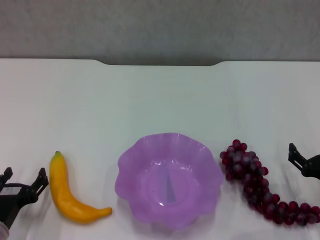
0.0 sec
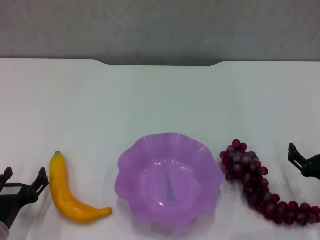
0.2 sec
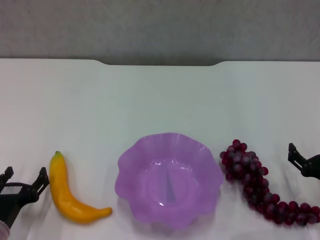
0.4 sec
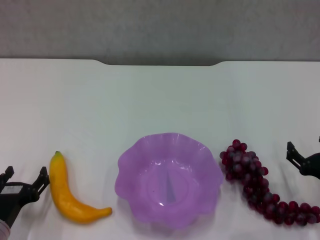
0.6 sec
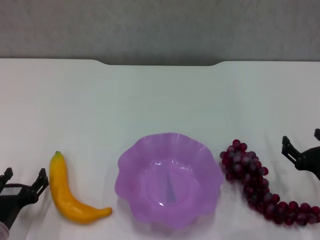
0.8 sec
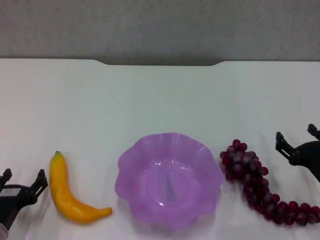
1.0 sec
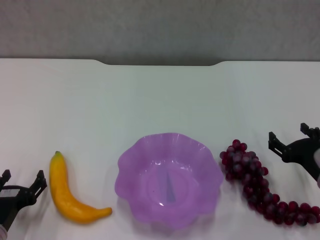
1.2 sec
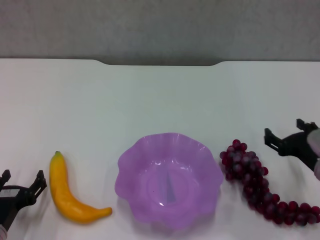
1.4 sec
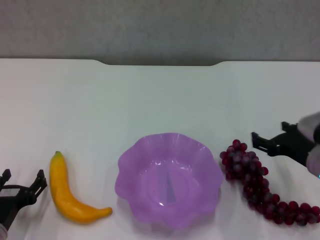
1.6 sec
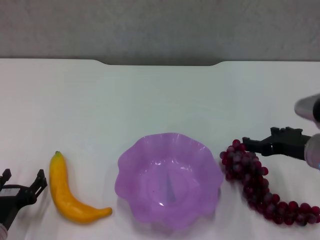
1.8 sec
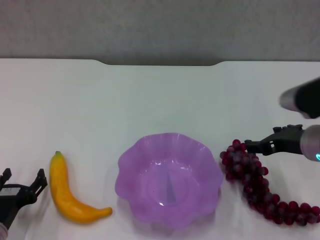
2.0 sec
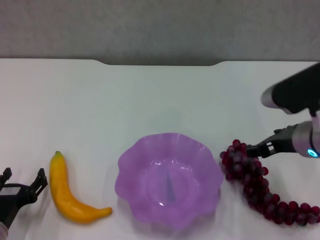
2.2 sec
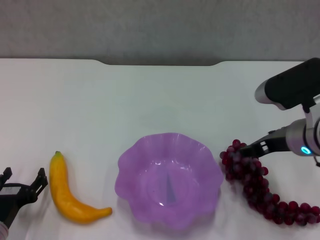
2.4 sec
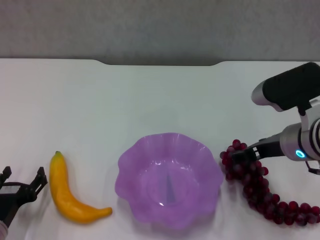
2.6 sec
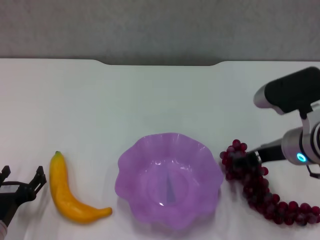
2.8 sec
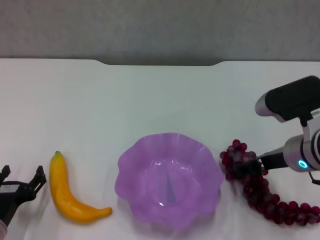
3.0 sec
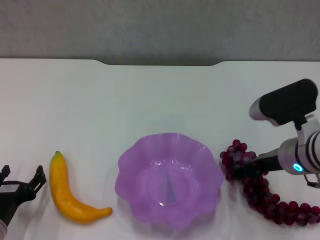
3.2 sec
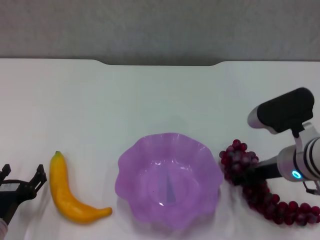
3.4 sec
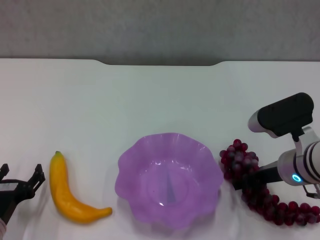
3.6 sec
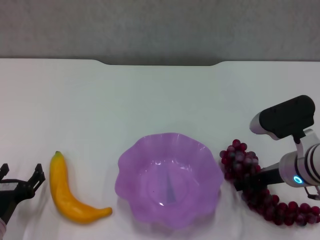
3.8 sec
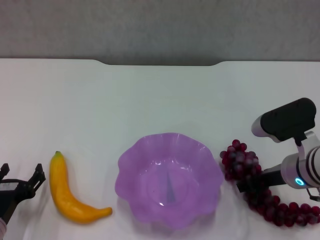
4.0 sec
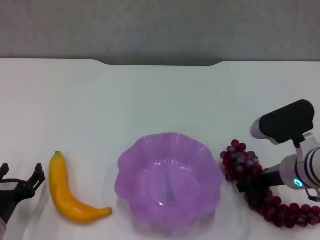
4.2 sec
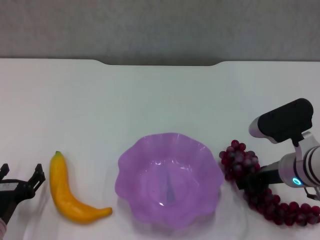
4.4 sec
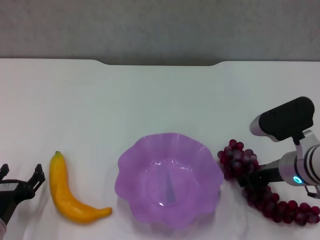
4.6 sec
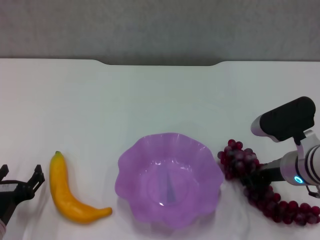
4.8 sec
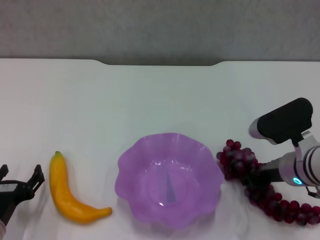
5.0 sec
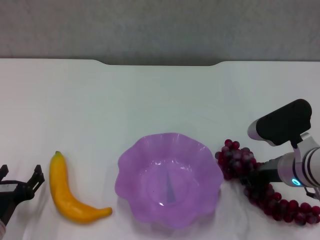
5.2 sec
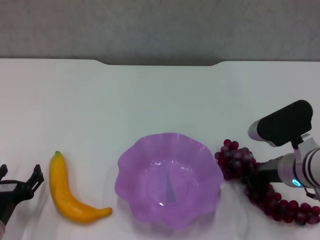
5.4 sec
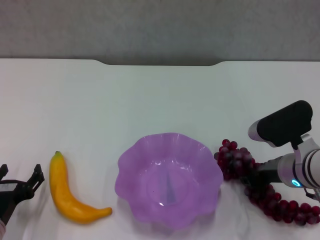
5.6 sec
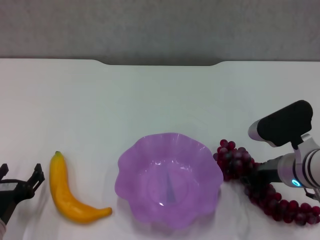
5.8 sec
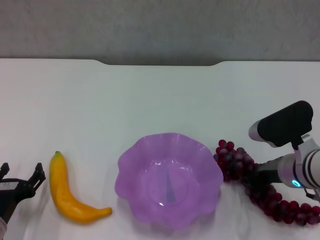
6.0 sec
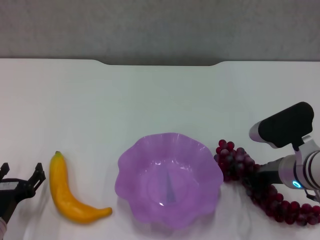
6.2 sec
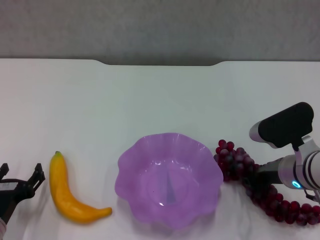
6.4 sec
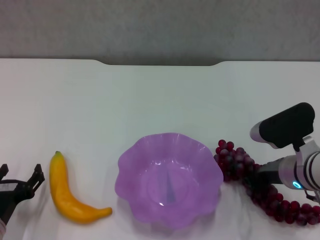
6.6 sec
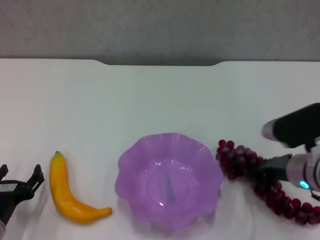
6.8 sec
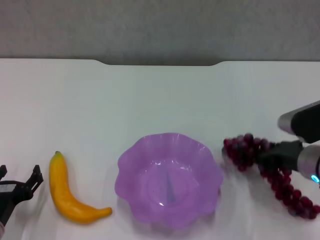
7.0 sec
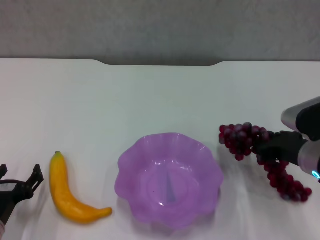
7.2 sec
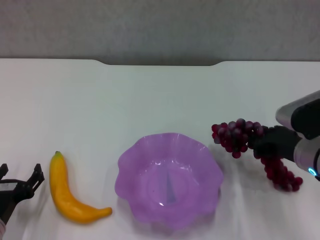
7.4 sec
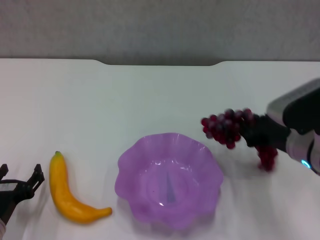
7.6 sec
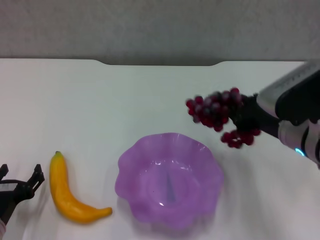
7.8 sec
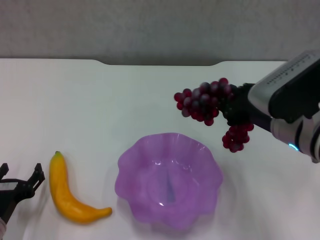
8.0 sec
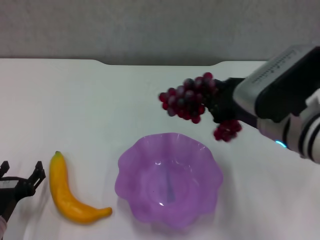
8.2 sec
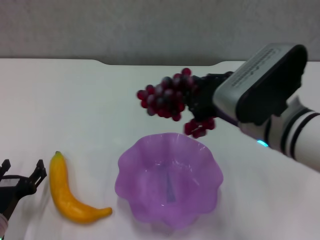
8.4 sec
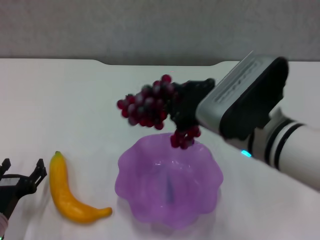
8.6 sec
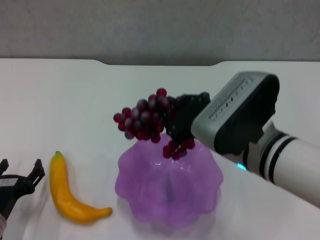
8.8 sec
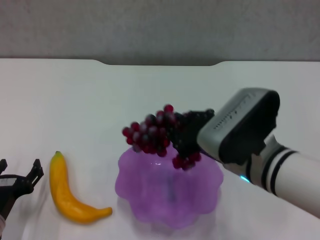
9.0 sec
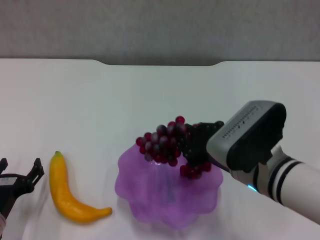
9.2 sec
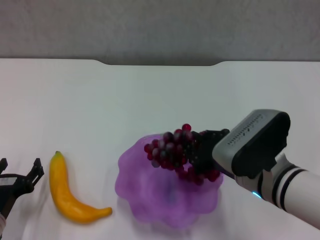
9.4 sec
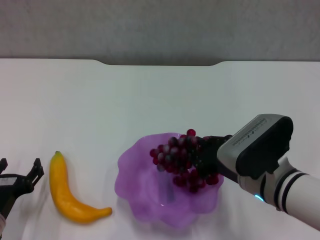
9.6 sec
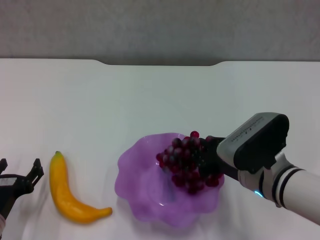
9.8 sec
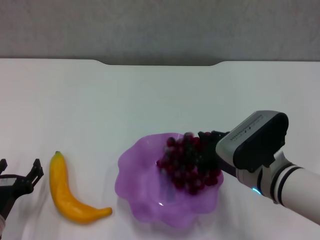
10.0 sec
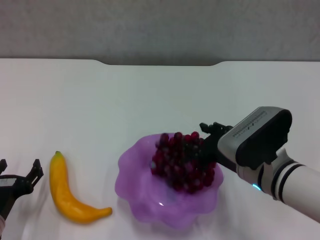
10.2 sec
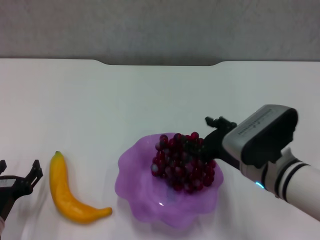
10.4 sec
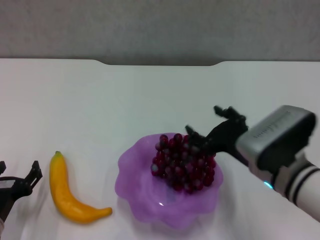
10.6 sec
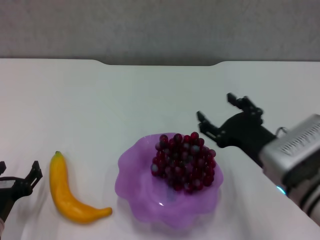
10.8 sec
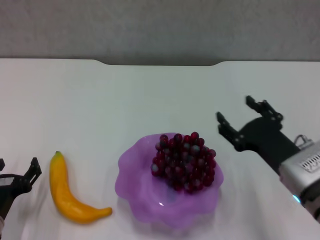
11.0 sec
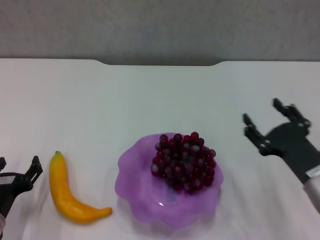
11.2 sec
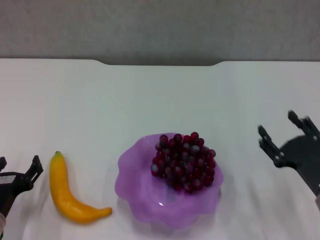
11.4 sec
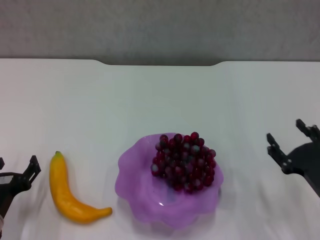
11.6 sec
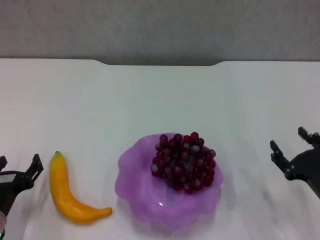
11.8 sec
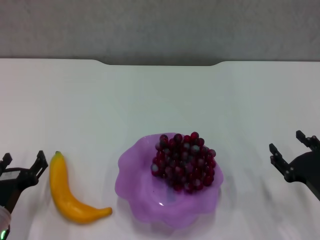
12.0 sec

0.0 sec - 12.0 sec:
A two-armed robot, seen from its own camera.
Step, 0.0 sec - 4.8 sec: Grasp the grape with right gripper.
Step, 5.0 sec - 10.6 sec: Place the grape in the purple plate with right gripper.
0.0 sec - 1.6 sec: The right gripper moves upward and to the left, approximately 10 cm.
1.6 sec - 3.0 sec: The right gripper moves about 5 cm.
3.0 sec - 4.4 sec: The grippers stay close to where they were, moving slightly.
4.4 sec - 6.0 sec: The right gripper closes its fingers.
6.0 sec - 7.6 sec: The right gripper ends up approximately 5 cm from where it was.
7.6 sec - 9.0 sec: The right gripper shifts about 10 cm to the left.
9.0 sec - 10.4 sec: The right gripper moves roughly 5 cm, and opens up.
10.4 sec - 12.0 sec: The right gripper shifts about 15 cm to the right and downward.

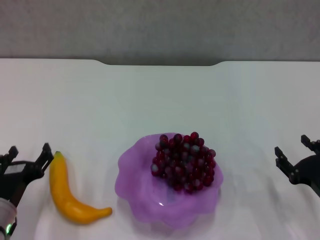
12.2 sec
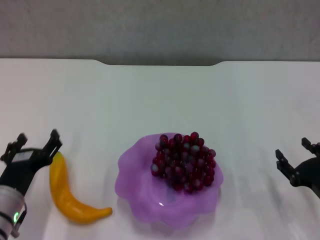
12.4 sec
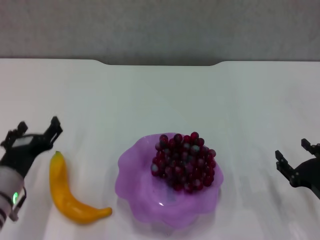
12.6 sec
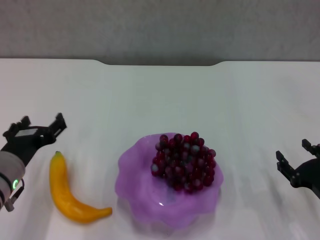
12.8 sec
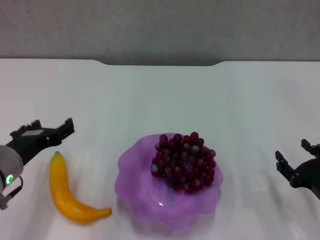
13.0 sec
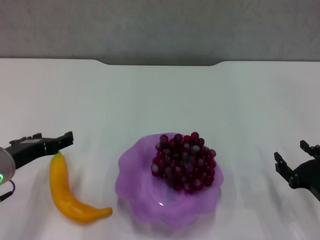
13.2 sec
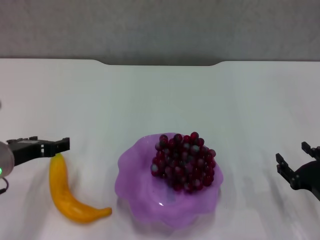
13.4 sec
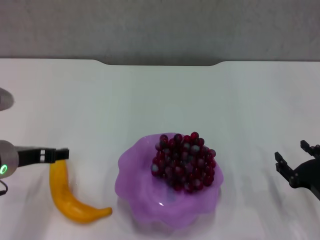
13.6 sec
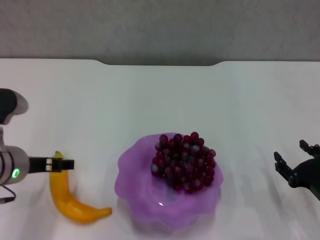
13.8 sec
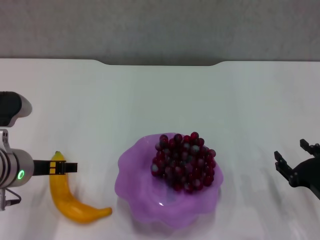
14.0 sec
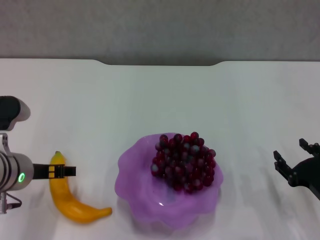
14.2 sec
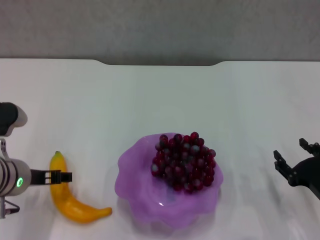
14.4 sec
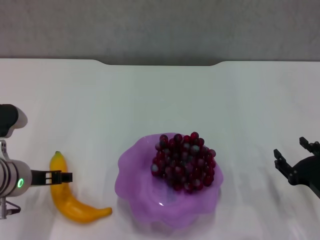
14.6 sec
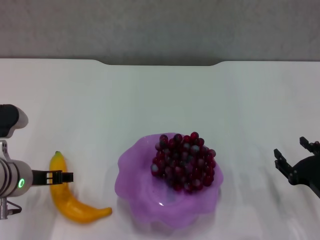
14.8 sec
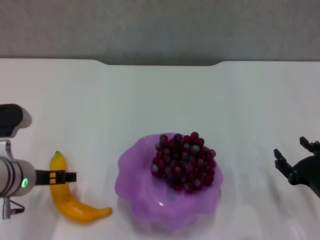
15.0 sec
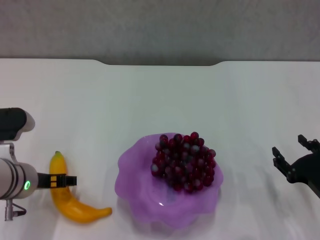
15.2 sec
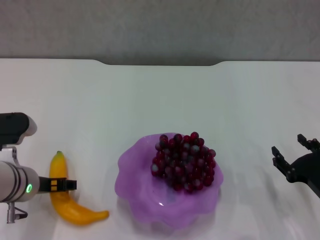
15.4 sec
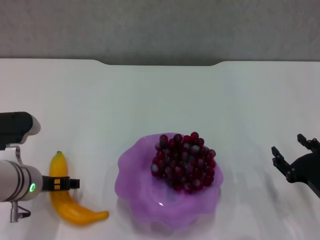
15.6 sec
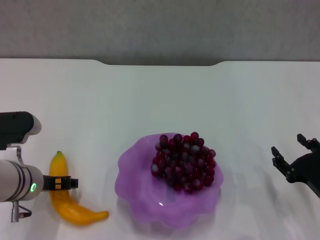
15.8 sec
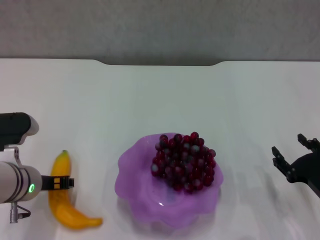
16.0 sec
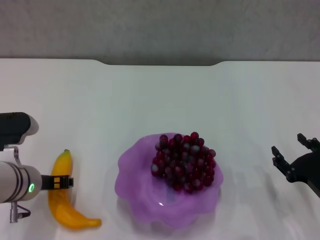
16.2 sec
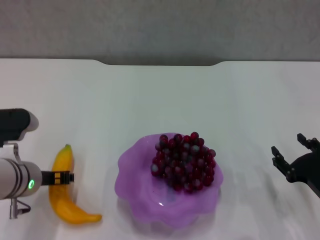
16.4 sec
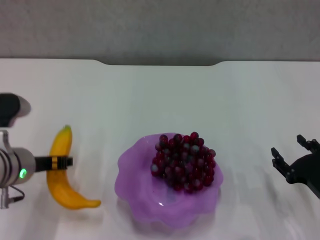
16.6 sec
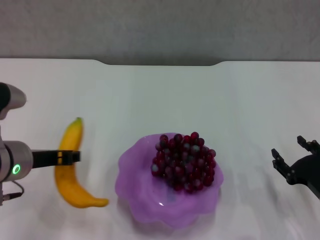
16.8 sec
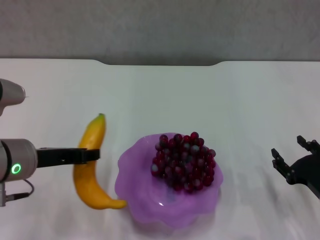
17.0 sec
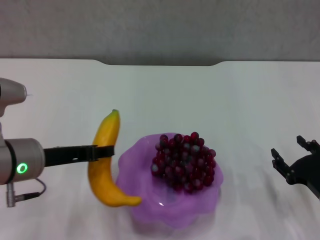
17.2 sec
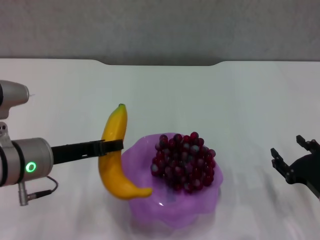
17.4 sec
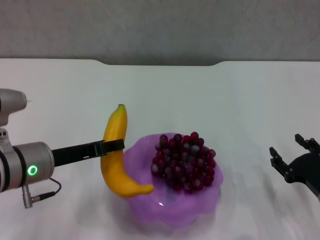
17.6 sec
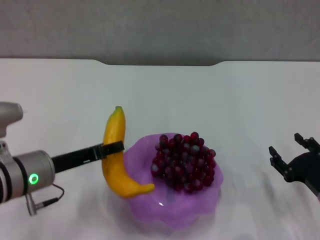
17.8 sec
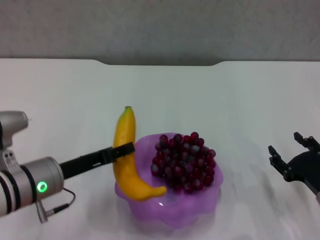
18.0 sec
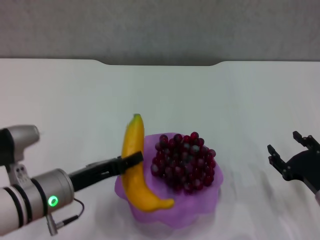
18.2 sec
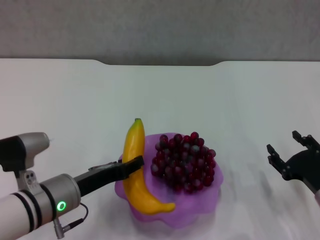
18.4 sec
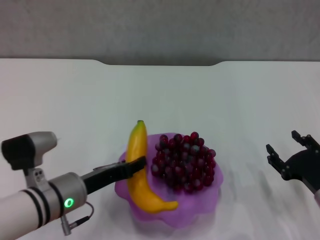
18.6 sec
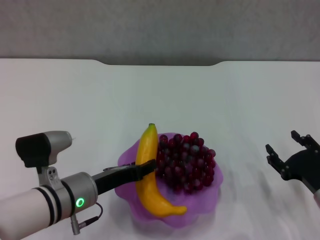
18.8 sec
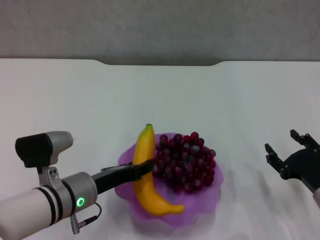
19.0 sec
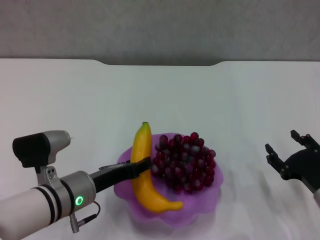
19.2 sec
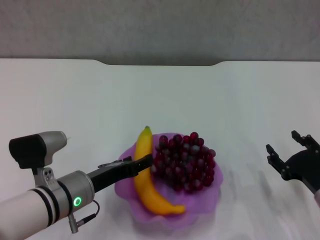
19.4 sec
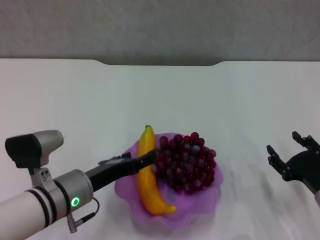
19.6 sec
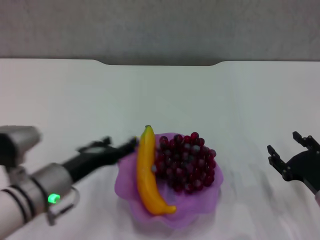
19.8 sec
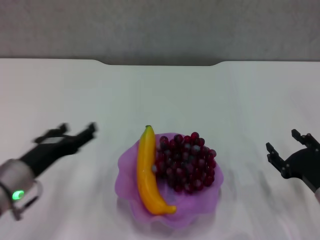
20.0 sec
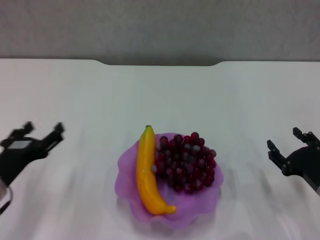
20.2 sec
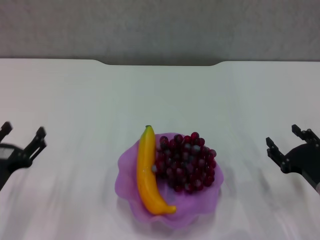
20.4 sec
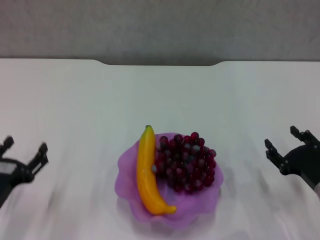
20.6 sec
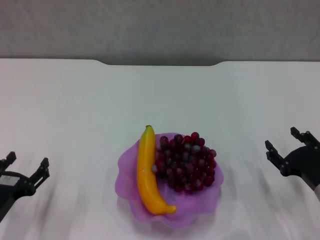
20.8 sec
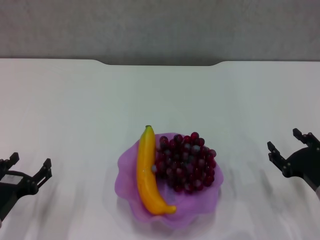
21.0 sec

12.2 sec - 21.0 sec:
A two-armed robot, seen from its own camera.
Step, 12.2 sec - 16.0 sec: Grasp the banana with left gripper.
Step, 16.2 sec - 19.4 sec: Place the banana in the purple plate with left gripper.
12.2 sec - 13.6 sec: The left gripper is displaced upward and forward by approximately 15 cm.
13.6 sec - 15.2 sec: The grippers stay close to where they were, moving slightly.
15.2 sec - 16.6 sec: The left gripper closes.
18.0 sec - 19.6 sec: The left gripper moves roughly 5 cm, and opens.
19.6 sec - 21.0 sec: The left gripper travels to the left and downward by roughly 15 cm, and opens its fingers.
